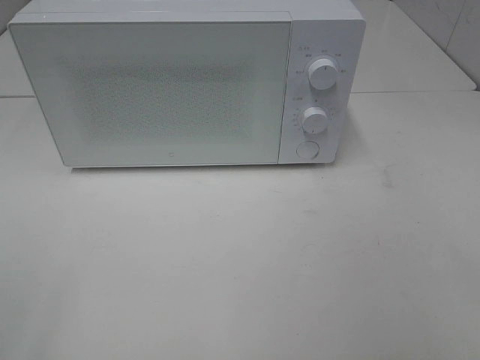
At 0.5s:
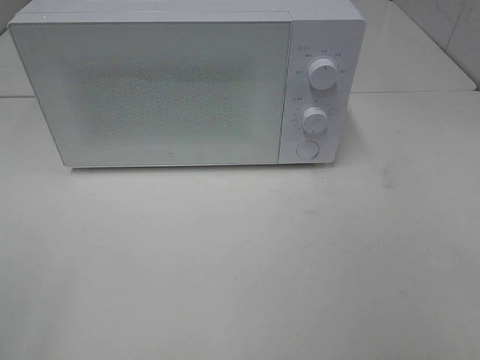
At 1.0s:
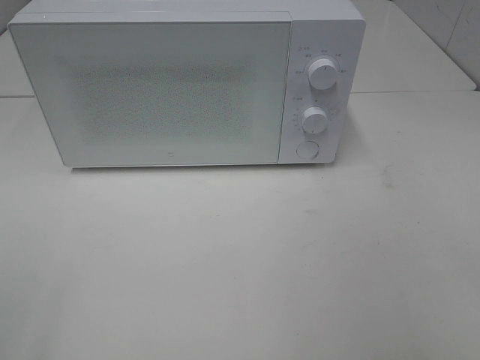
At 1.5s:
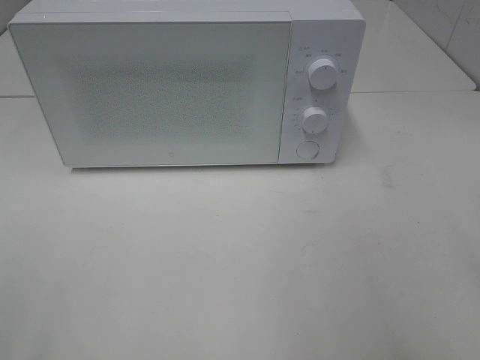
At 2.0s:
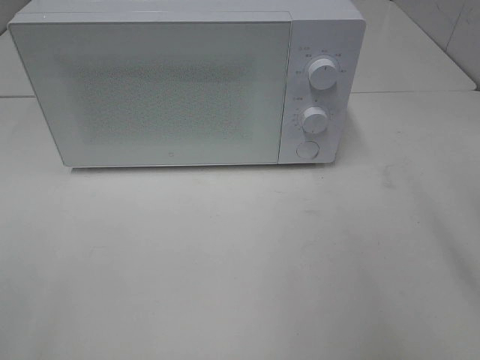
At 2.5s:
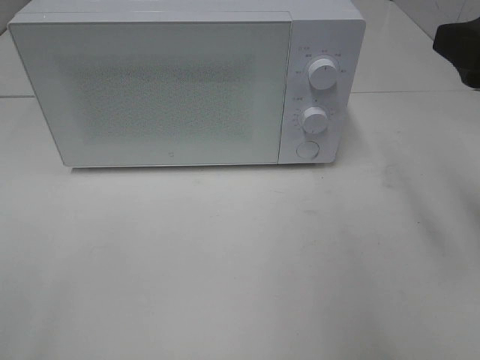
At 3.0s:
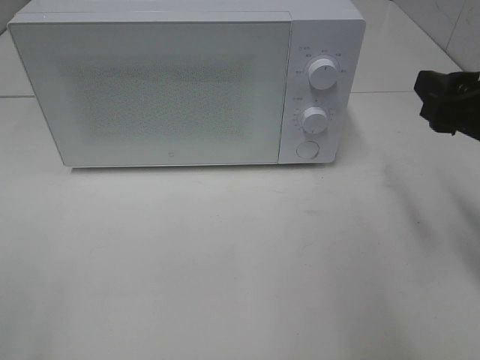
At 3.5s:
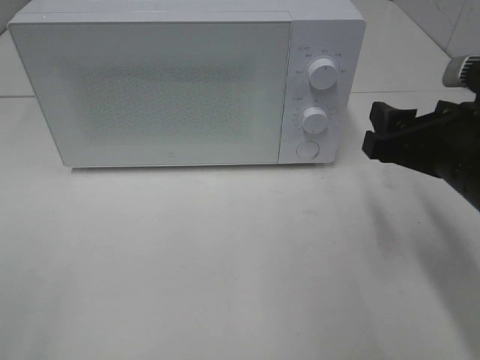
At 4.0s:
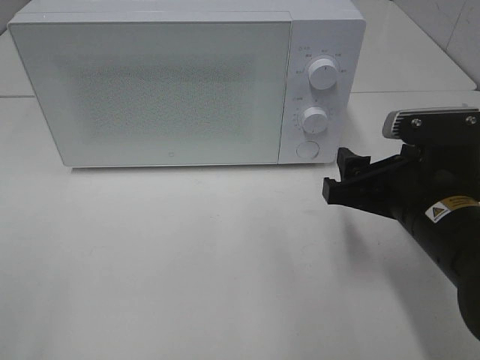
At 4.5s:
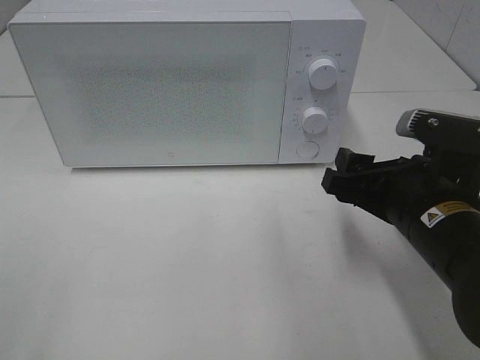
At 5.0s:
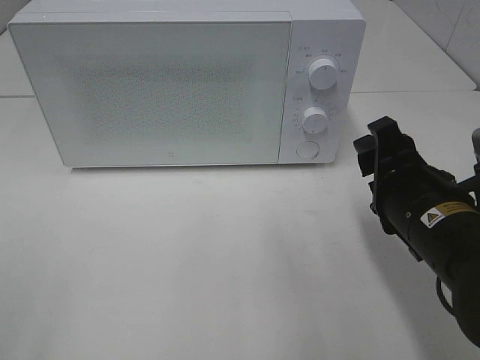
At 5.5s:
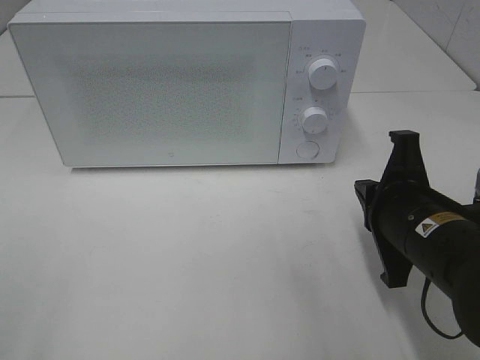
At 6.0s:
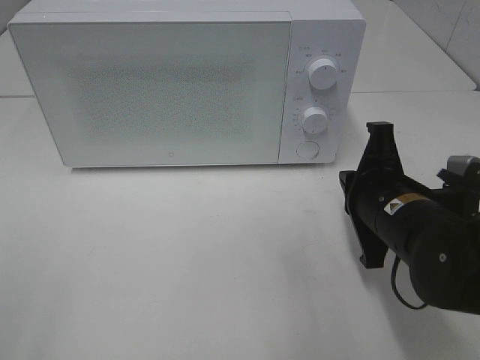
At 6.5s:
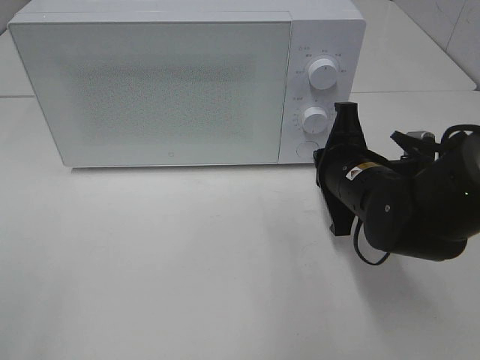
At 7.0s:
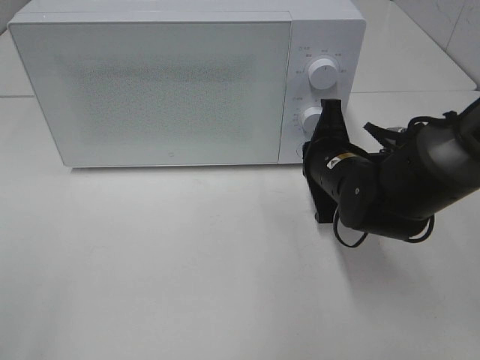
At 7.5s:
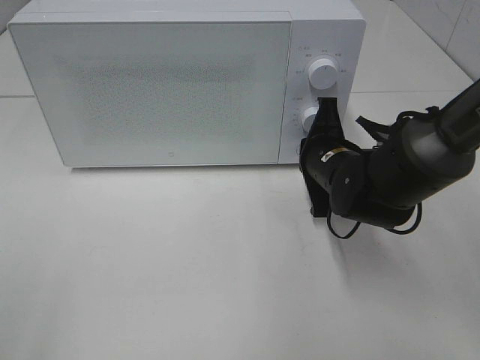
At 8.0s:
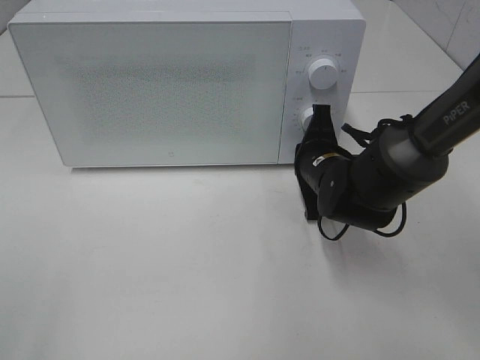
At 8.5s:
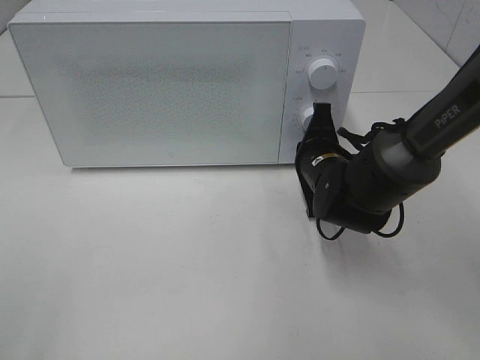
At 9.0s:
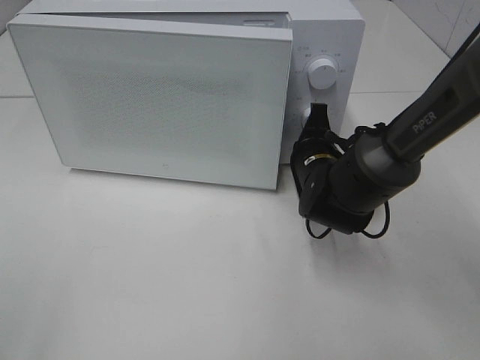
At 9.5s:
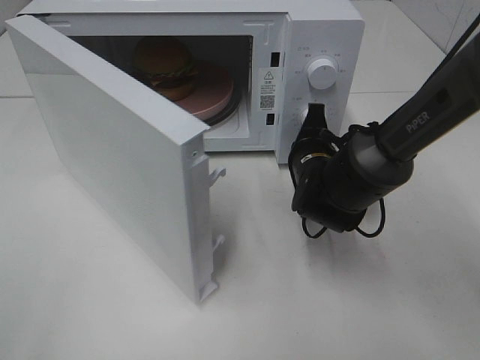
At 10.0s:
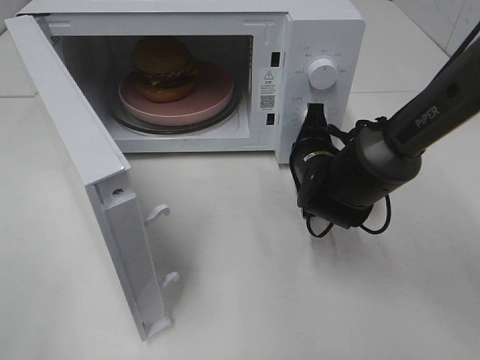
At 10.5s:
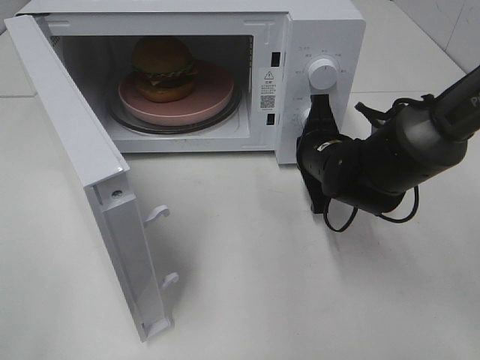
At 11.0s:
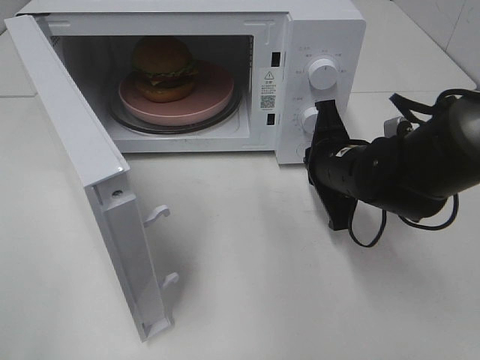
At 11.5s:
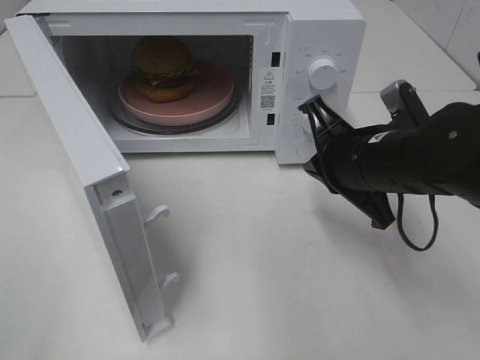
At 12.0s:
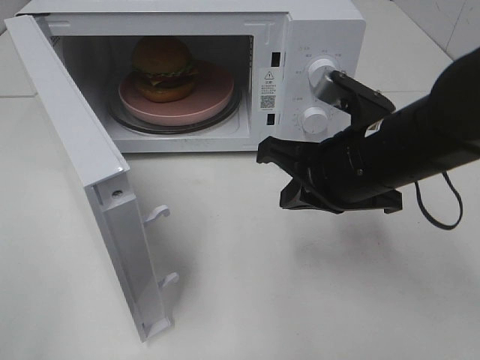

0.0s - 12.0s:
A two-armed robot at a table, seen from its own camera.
Task of the whole recording: Heat the burger.
Step, 0.0s - 10.5s: Right hand: press the switch.
2.0s - 4.0s: The right gripper shifts roughly 20 cm downward and to the left.
4.0s - 6.0s: The right gripper closes its fingers.
6.0s - 8.0s: The right gripper travels forward by roughly 10 cm.
10.0s - 12.0s: The right gripper moves upward and backward, some 15 cm.

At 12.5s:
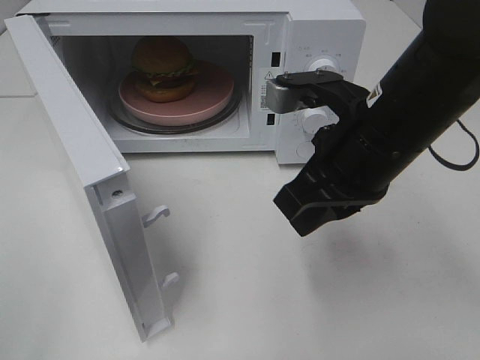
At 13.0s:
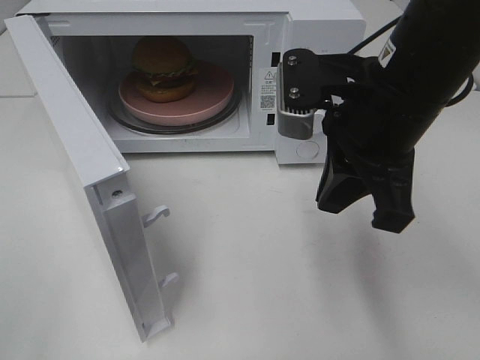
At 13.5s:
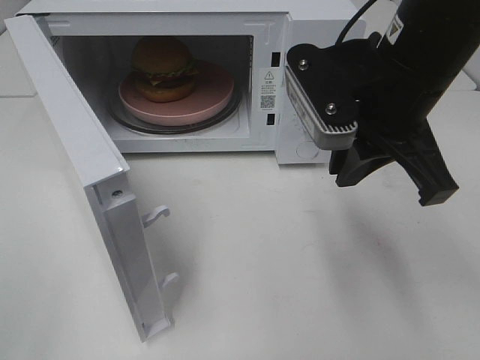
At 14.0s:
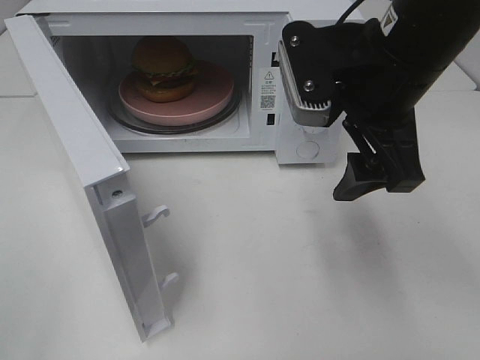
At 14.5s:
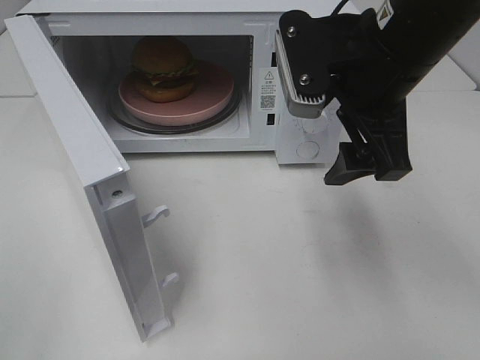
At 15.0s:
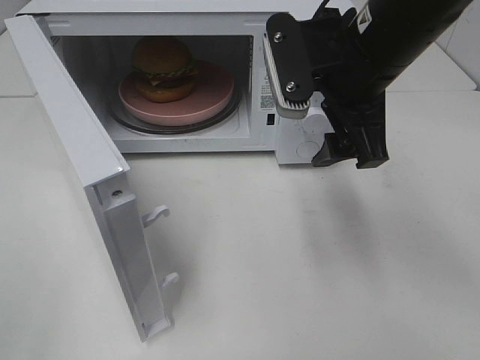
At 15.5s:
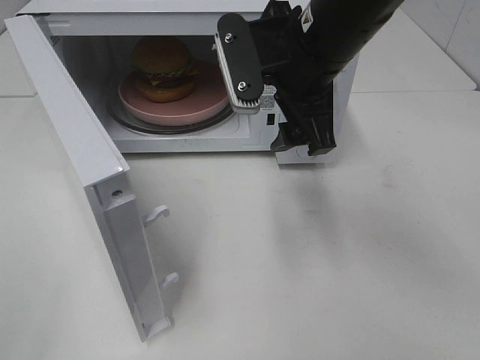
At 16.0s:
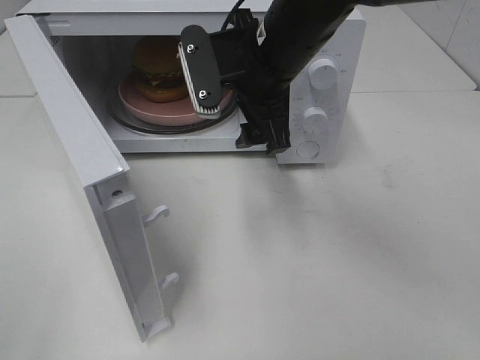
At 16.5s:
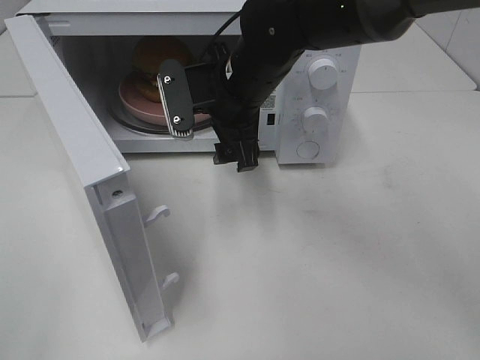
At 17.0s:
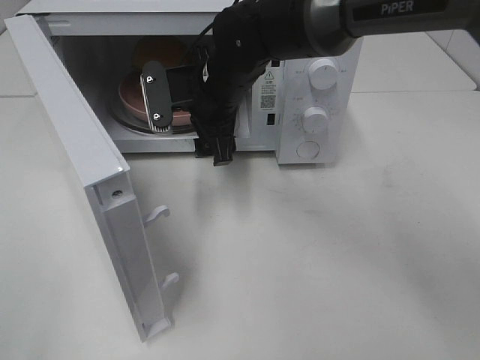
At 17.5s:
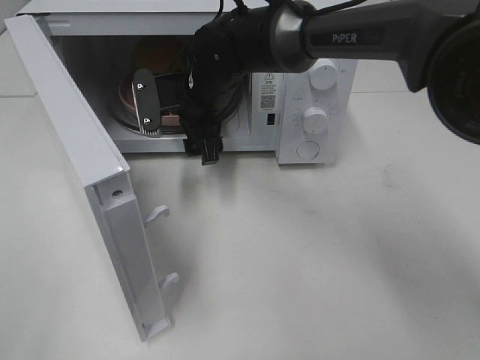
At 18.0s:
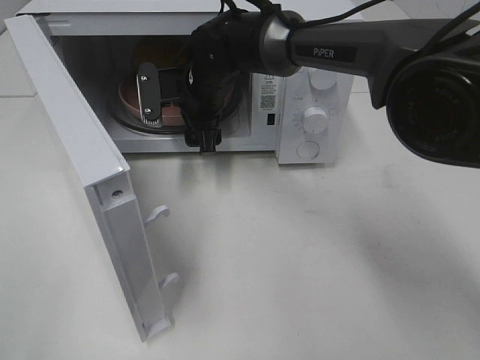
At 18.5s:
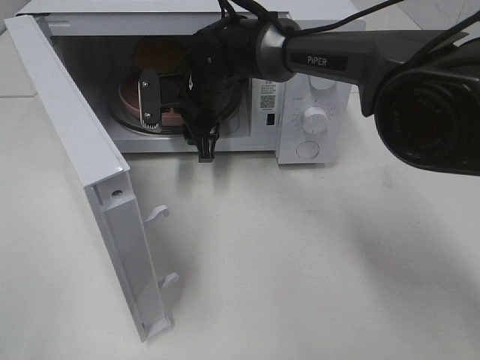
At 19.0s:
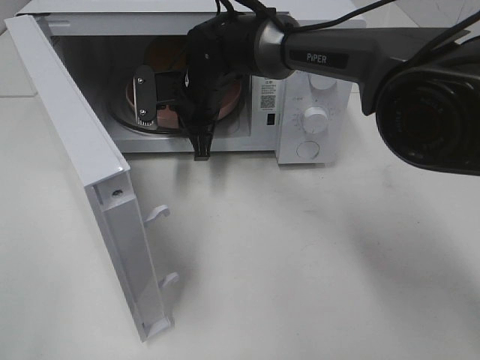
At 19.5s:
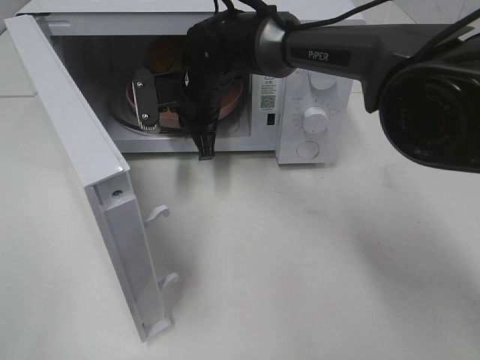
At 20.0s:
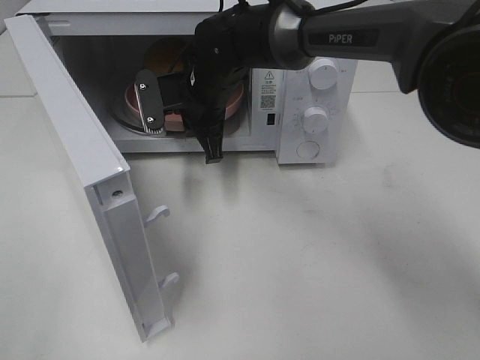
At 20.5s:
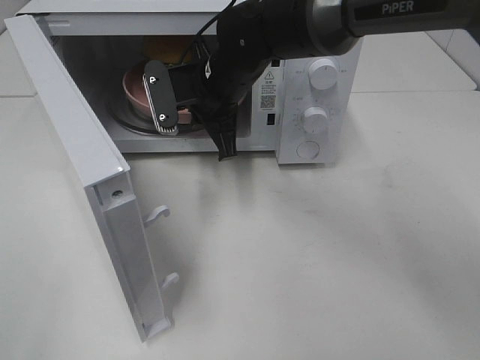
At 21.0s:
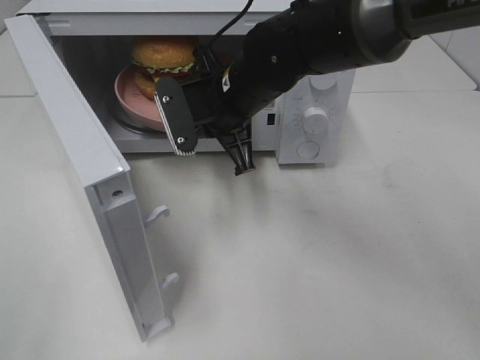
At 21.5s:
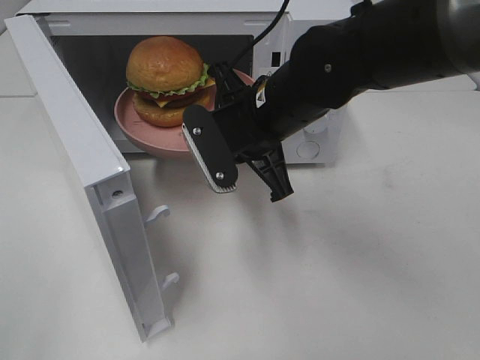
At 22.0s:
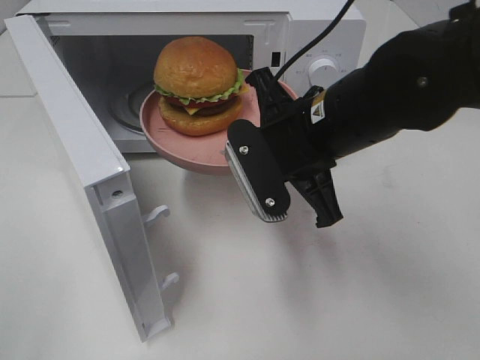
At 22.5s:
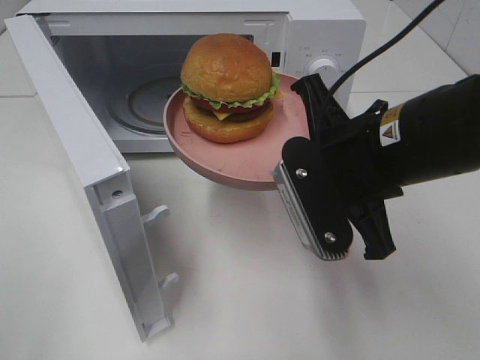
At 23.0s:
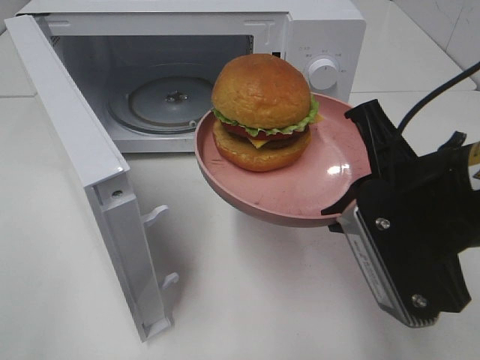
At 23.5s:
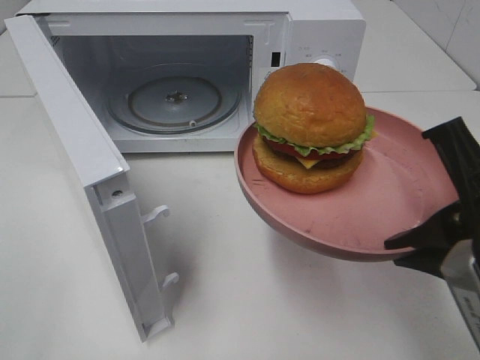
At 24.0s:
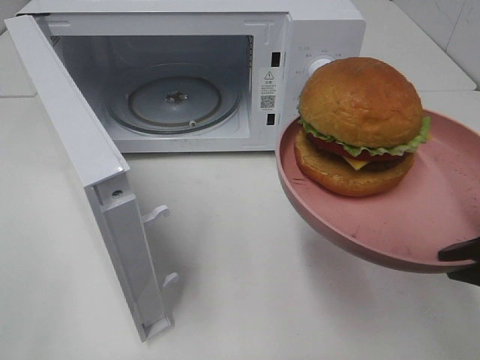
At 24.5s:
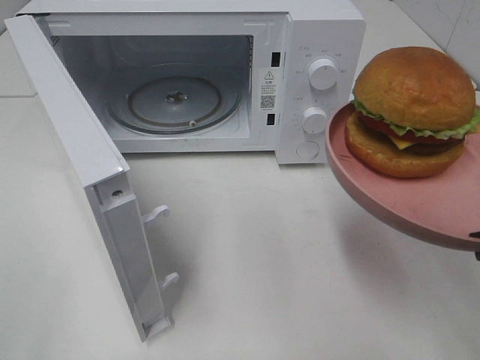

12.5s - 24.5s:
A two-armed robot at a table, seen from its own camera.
Task of the whole recording: Heat the burger.
Step, 12.5s - 19.0s: Right hand: grab the plate with the hamburger.
12.5s - 14.5s: The right gripper is displaced upward by about 5 cm, and opens up.
14.5s - 16.5s: The right gripper travels to the left, forward and downward by some 15 cm.
16.5s - 18.5s: The right gripper is displaced forward and downward by roughly 10 cm, and closes.
18.5s - 20.5s: The right gripper travels backward by some 5 cm, and closes its fingers.
20.5s - 22.5s: The right gripper is displaced backward and to the right by roughly 20 cm.
22.5s - 24.5s: The right gripper moves backward and to the right, about 15 cm.

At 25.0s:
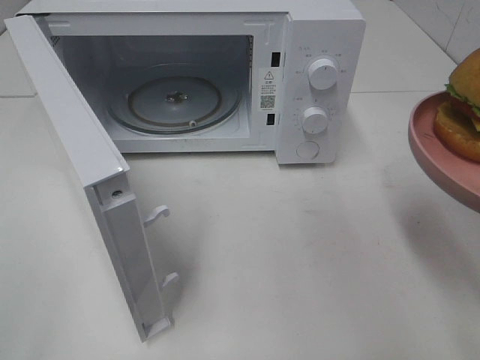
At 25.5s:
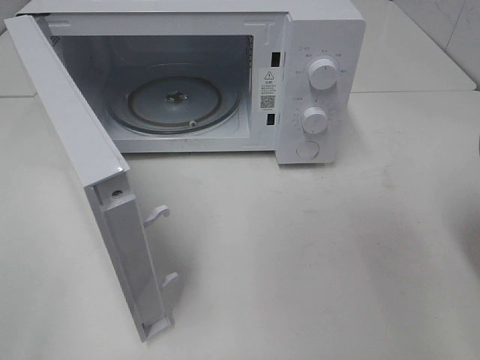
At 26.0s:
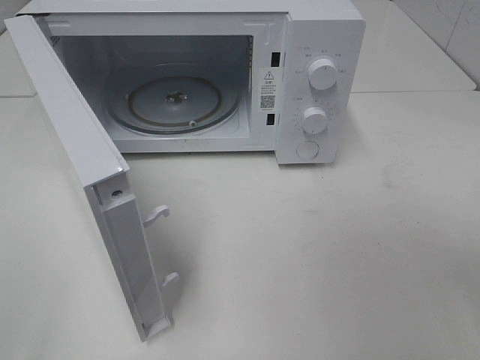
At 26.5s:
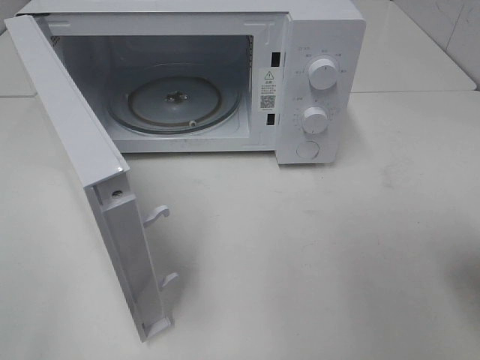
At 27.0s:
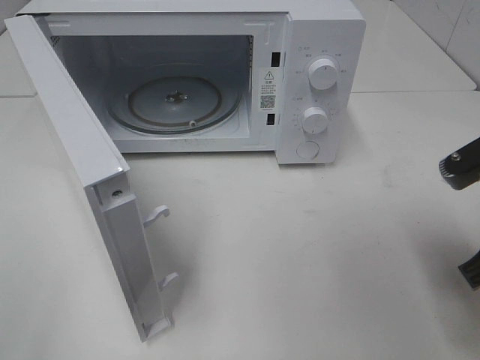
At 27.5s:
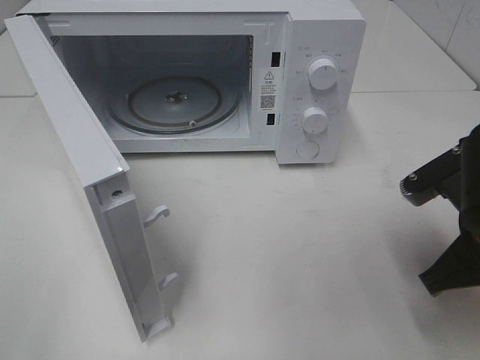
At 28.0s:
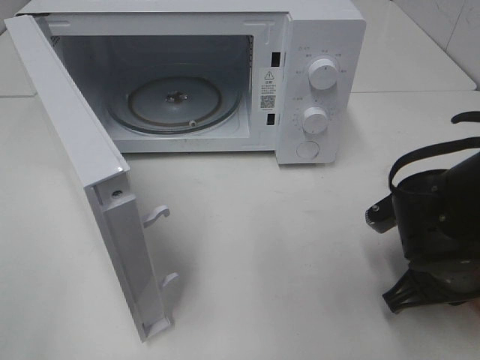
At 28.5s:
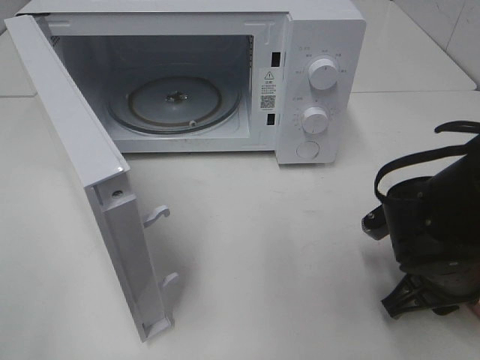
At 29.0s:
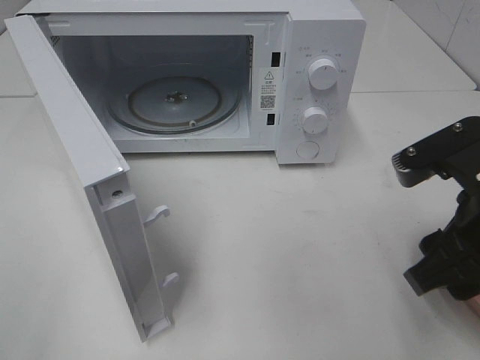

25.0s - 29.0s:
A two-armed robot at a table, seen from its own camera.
Task of the whole recording: Heat the burger.
Step, 25.0s - 28.5s: Right hand: place the plate on the table.
25.0s - 27.0s: The right gripper is displaced forward and downward by approximately 10 cm.
27.0s - 29.0s: The right gripper travels downward and back again, some 10 cm each way, and opens up.
